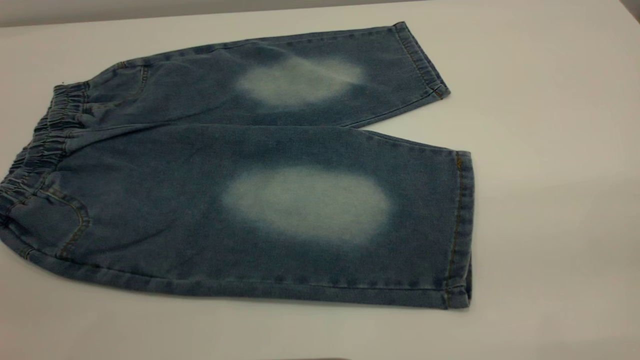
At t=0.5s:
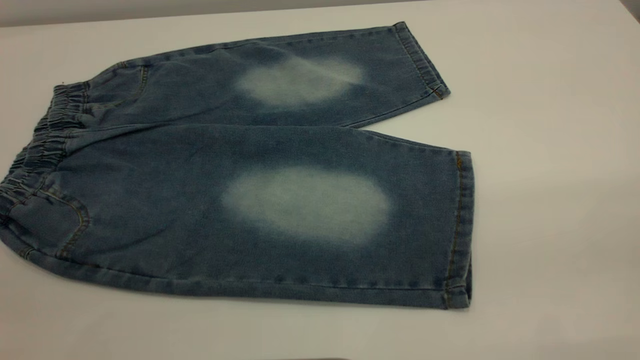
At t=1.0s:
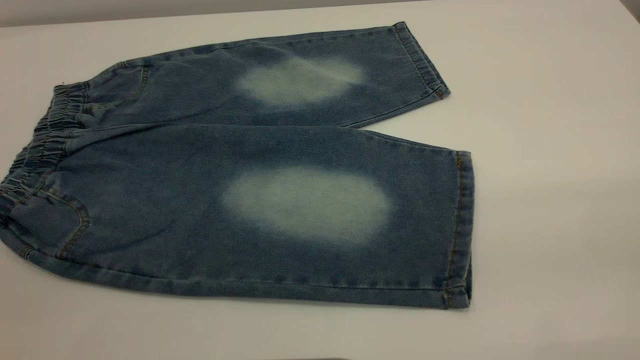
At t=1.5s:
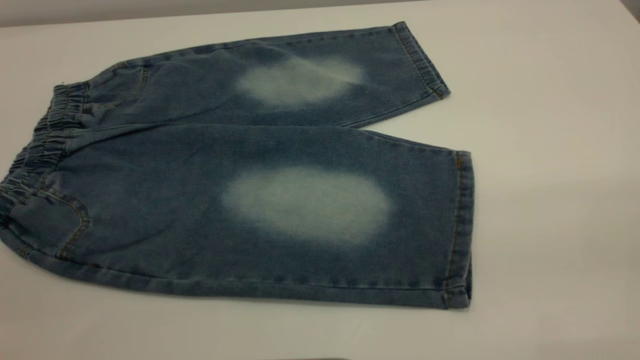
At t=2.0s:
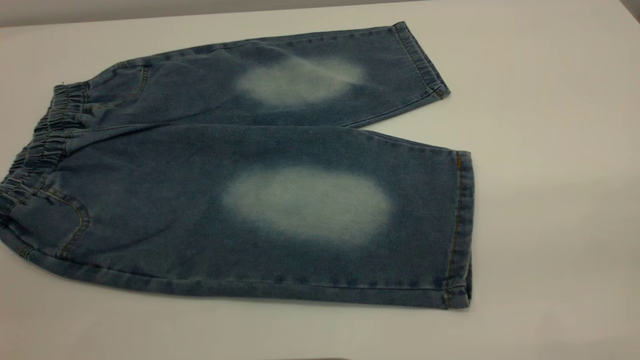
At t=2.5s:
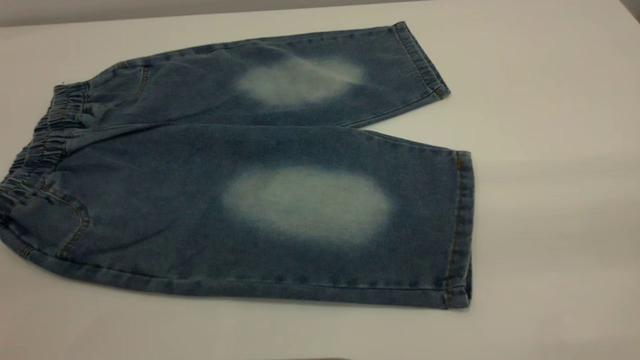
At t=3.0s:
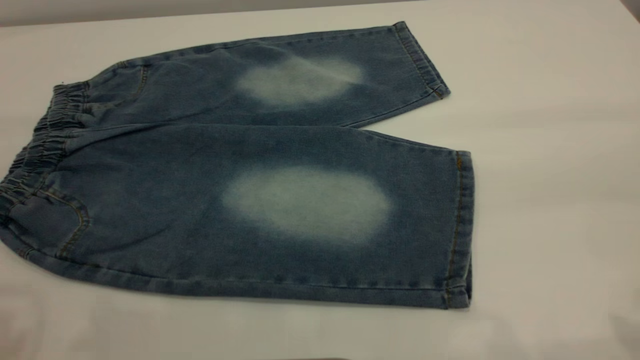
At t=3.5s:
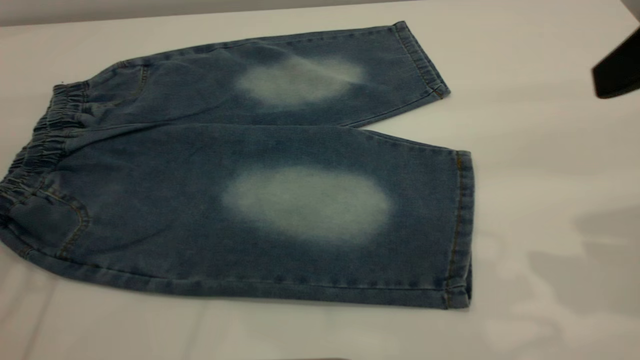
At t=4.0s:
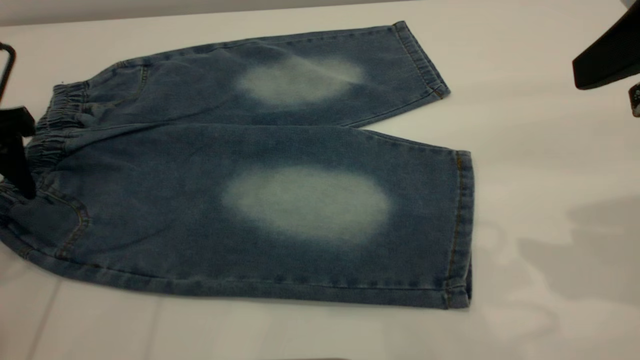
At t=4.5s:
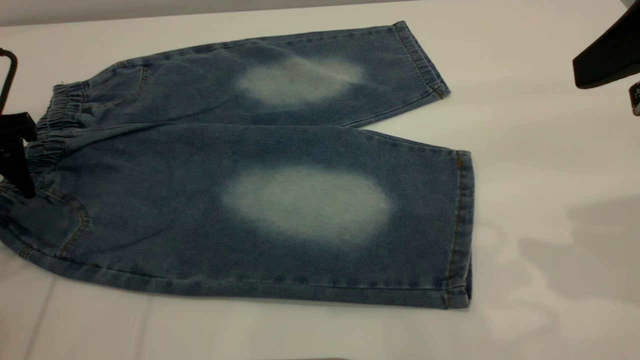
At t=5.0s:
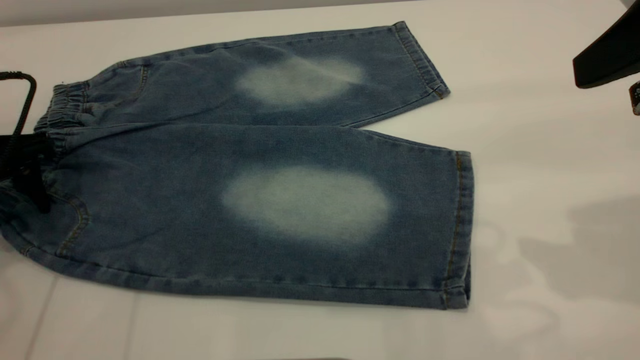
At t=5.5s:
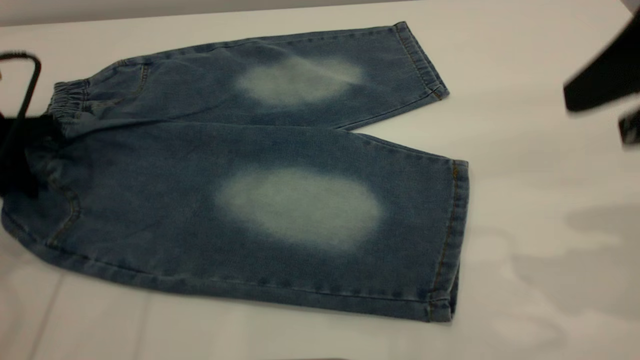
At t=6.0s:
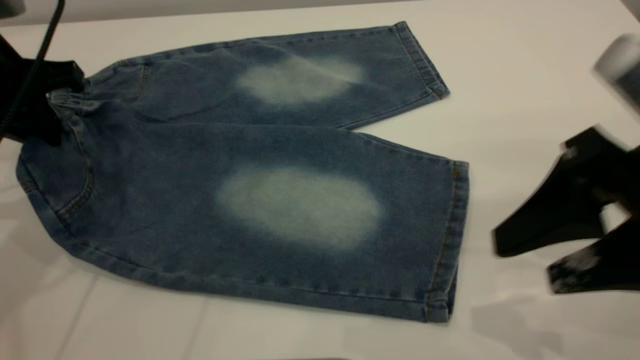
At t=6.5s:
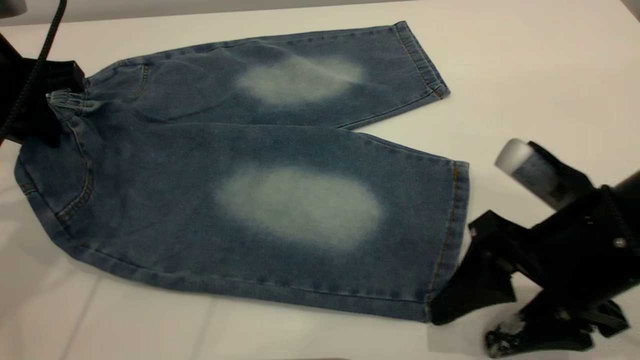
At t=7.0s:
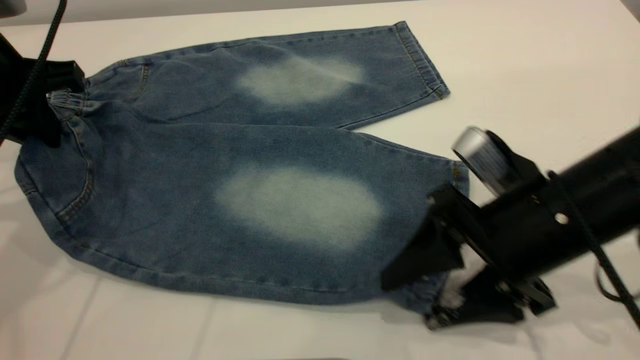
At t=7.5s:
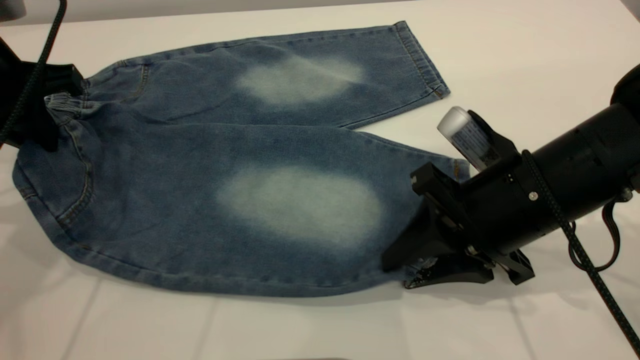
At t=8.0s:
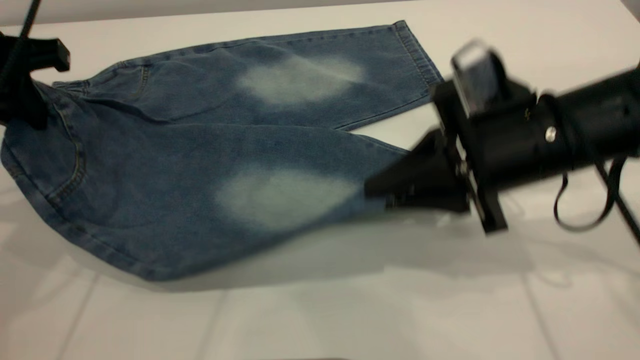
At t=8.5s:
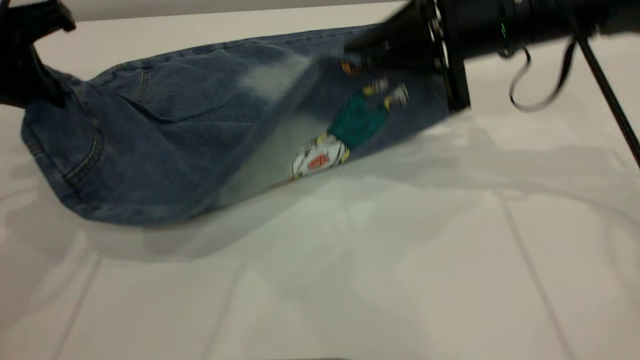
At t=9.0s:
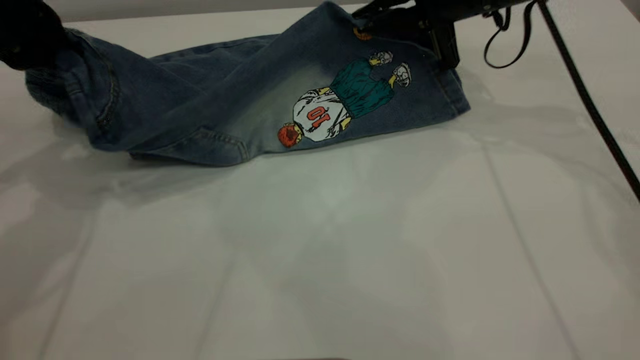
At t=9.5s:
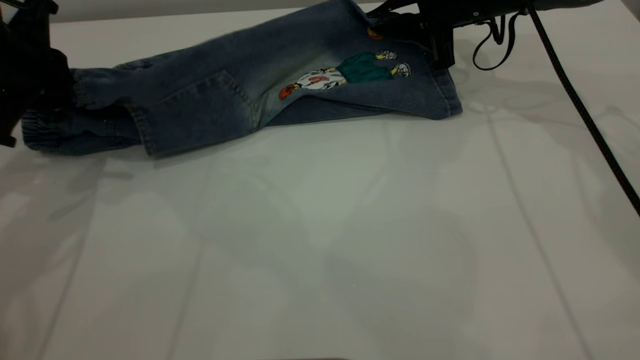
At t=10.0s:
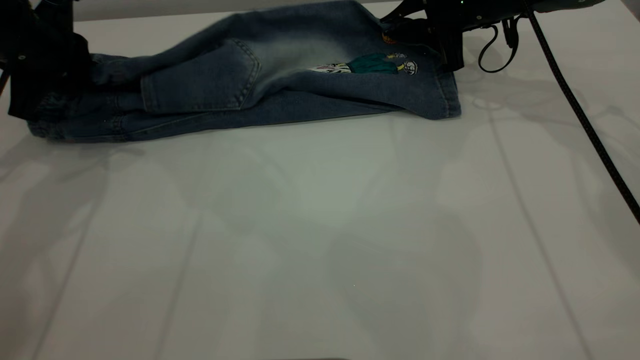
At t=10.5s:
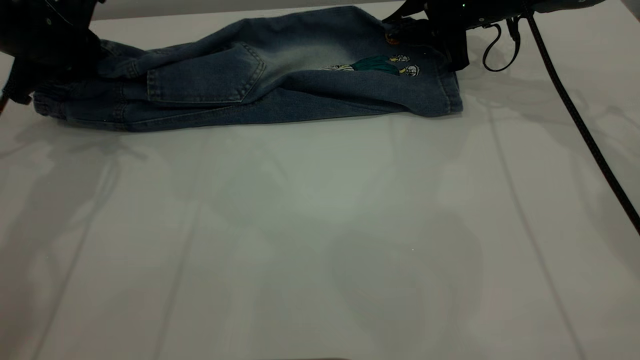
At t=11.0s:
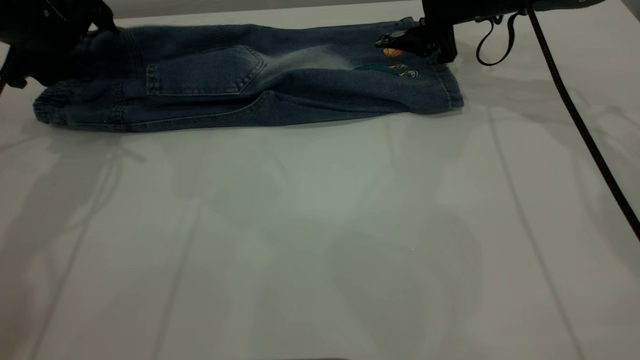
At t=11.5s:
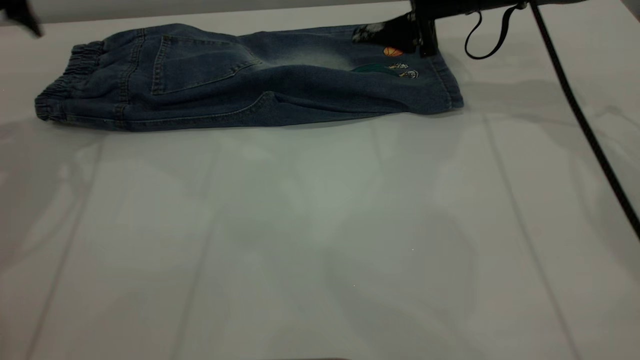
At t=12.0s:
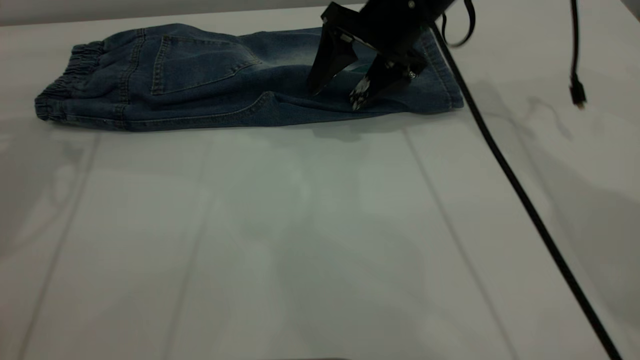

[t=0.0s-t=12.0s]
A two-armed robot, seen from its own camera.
Step, t=0.0s to t=11.5s: Fold the bottom of the pants upward.
t=0.0s to t=2.0s: Both grippers stay put.
t=2.0s to t=4.0s: The left gripper is displaced forward and downward by about 35 cm, while the right gripper is displaced forward by some 20 cm.
t=4.0s to t=6.0s: The left gripper shifts by about 5 cm, and closes its fingers, while the right gripper goes about 10 cm downward.
t=6.0s to t=8.0s: The right gripper is displaced forward and to the left by approximately 10 cm, and closes its fingers.
t=8.0s to t=10.0s: The right gripper shifts about 25 cm forward. The left gripper is displaced forward by about 10 cm.
t=10.0s to t=12.0s: The right gripper shifts approximately 10 cm to the left, and opens its fingers. Meanwhile the left gripper travels upward by approximately 10 cm, and opens up.

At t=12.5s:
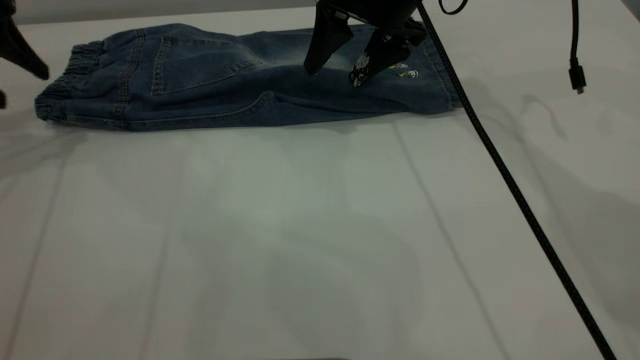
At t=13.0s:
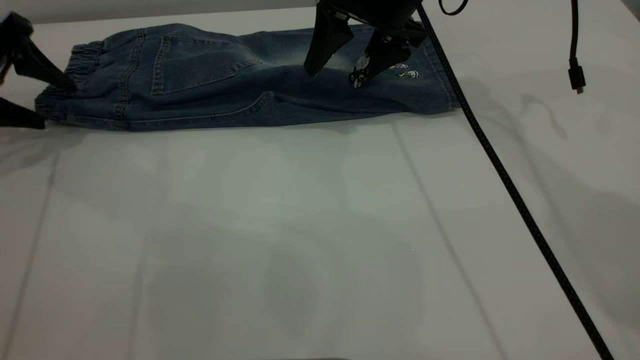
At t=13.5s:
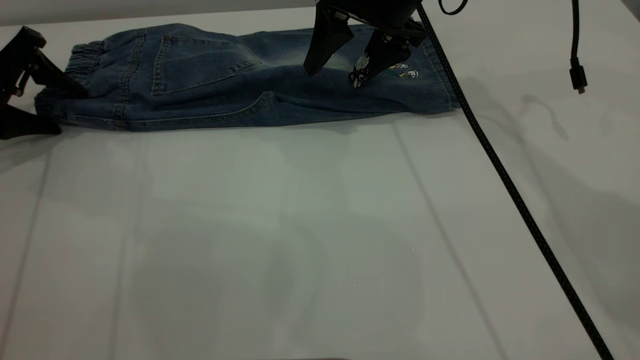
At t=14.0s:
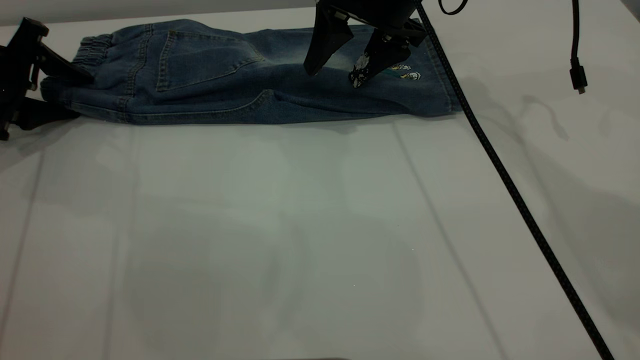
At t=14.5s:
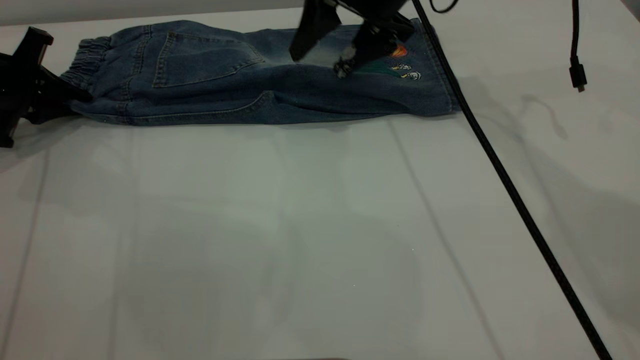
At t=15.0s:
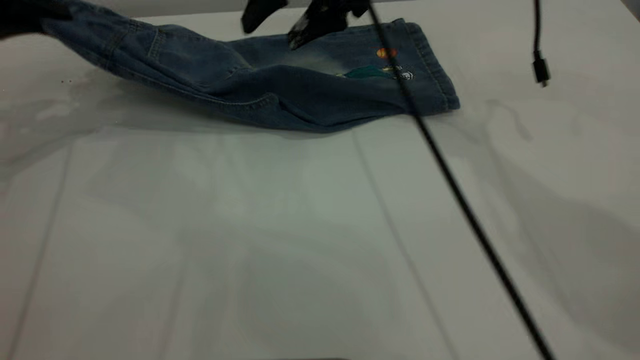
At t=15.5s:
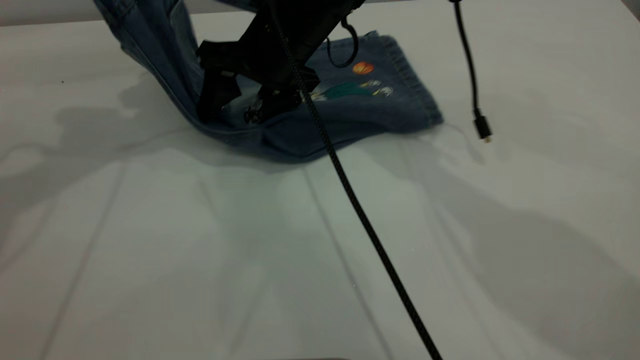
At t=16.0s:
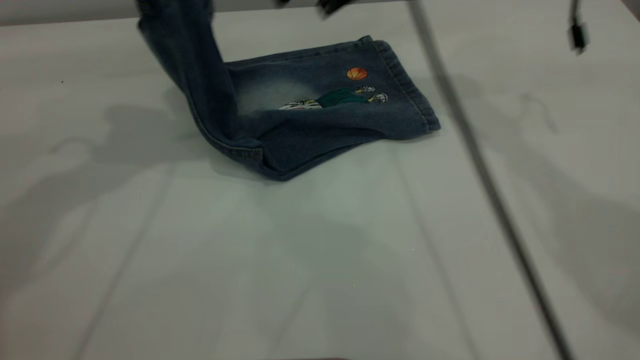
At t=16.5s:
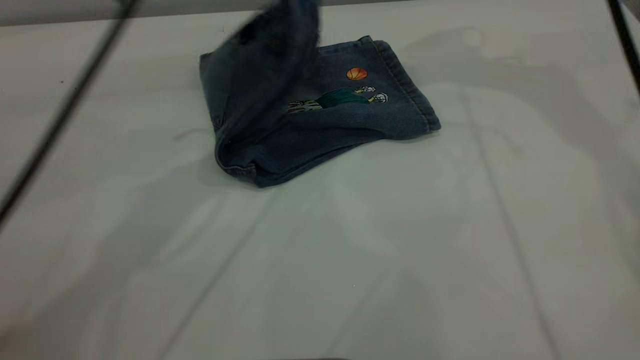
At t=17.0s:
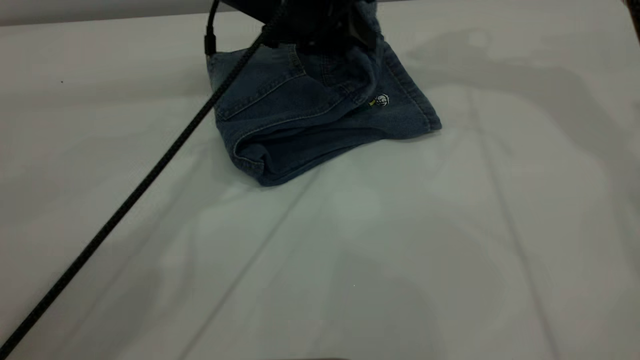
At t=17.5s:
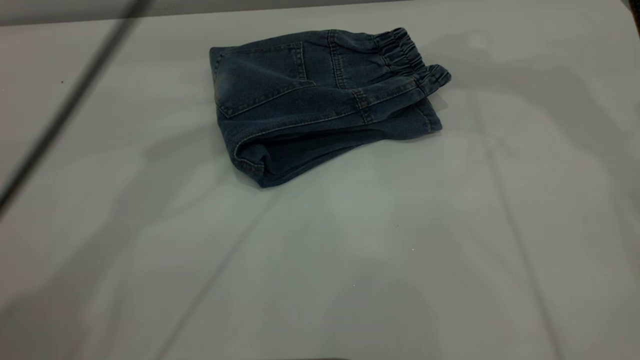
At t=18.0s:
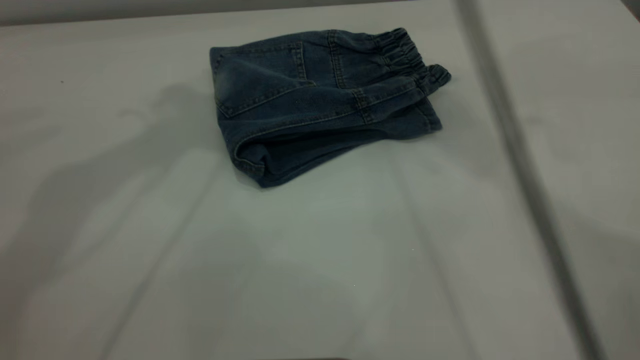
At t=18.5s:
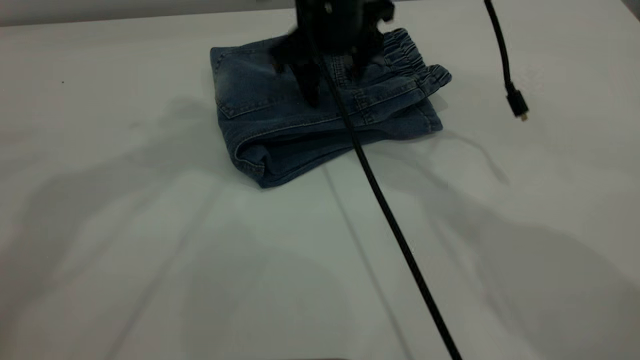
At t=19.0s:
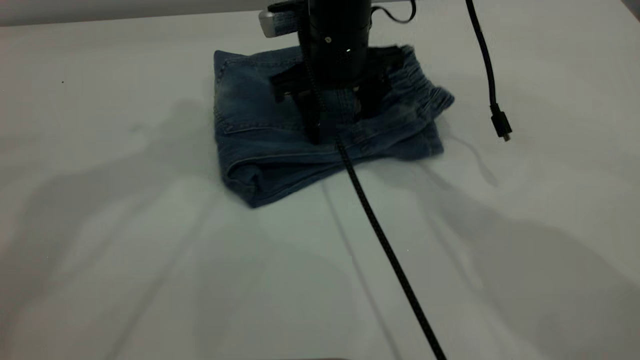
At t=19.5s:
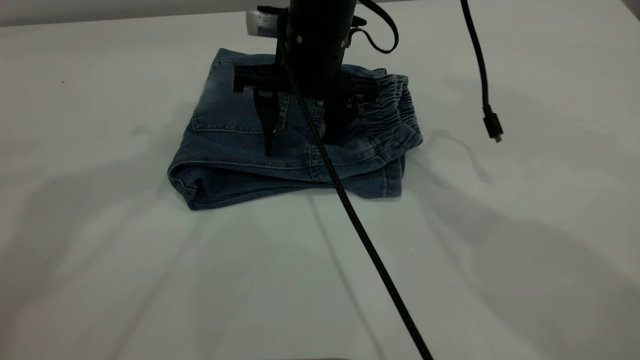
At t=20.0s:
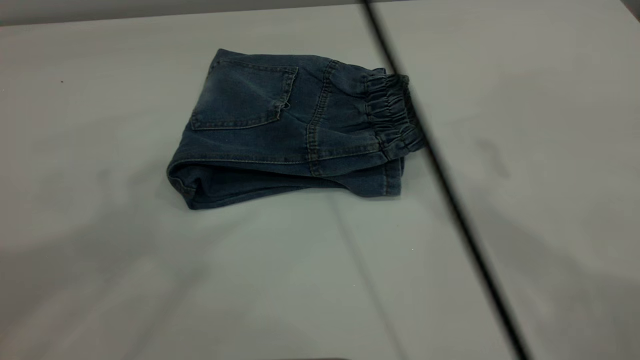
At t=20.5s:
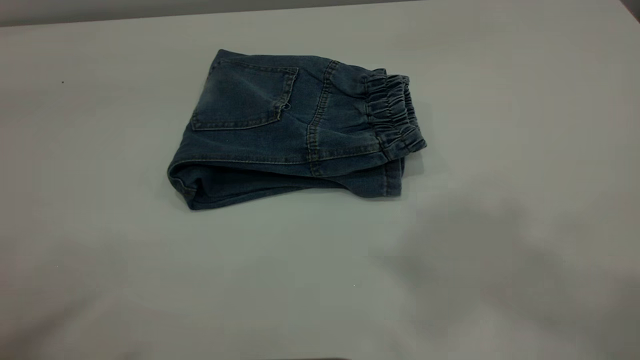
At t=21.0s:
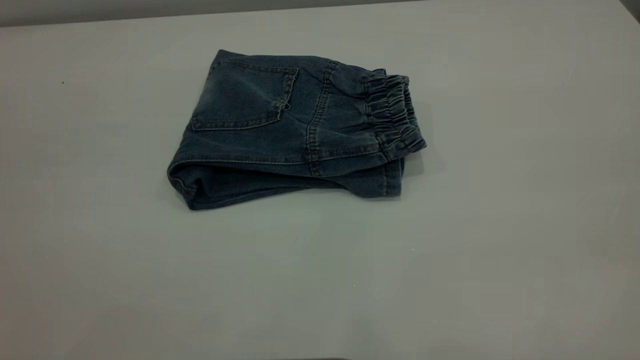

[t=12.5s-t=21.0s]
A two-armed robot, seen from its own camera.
Step, t=12.5s to t=18.0s: Fold the pants from left to right.
t=12.5s to t=14.5s: The left gripper heads downward, covering approximately 10 cm, and closes its fingers.
t=14.5s to t=16.5s: The left gripper travels to the right and upward by about 30 cm. The right gripper moves upward and to the right, approximately 20 cm.
t=16.5s to t=19.0s: The left gripper shifts about 20 cm upward and to the left, and opens. Meanwhile the right gripper moves downward and to the left, roughly 25 cm.
t=19.0s to t=21.0s: The left gripper goes about 30 cm backward, while the right gripper goes some 60 cm backward, upward and to the right.
